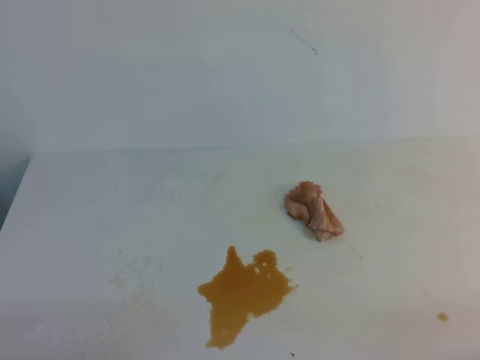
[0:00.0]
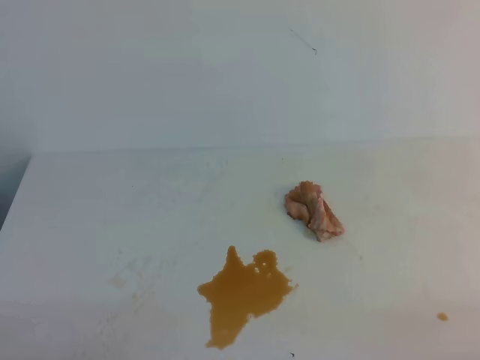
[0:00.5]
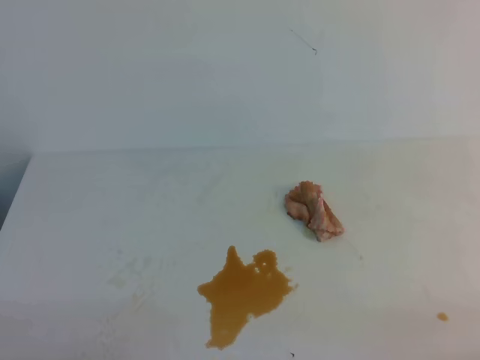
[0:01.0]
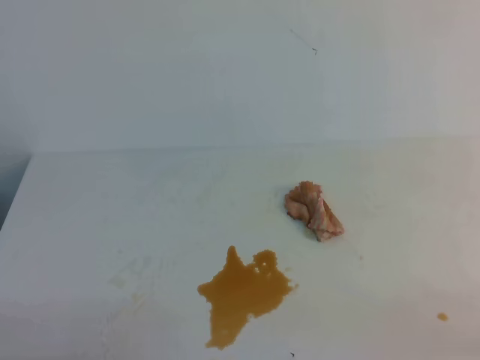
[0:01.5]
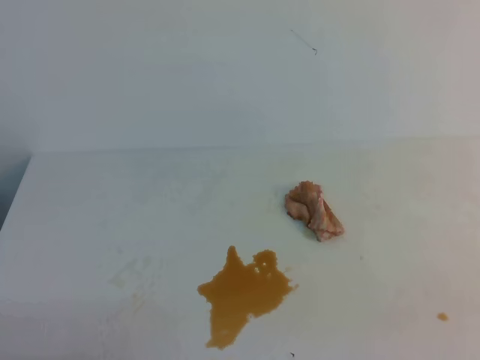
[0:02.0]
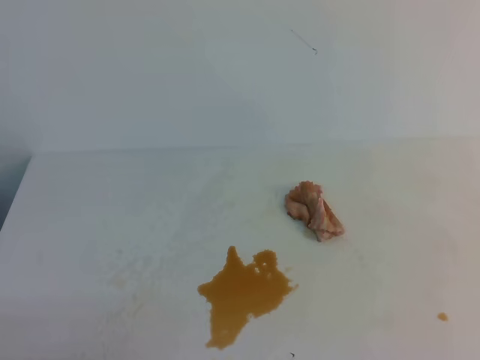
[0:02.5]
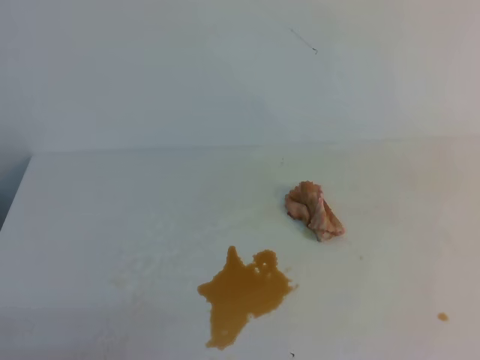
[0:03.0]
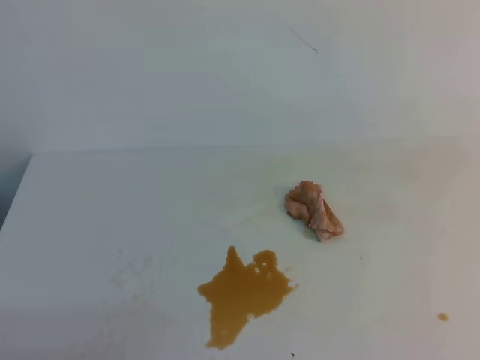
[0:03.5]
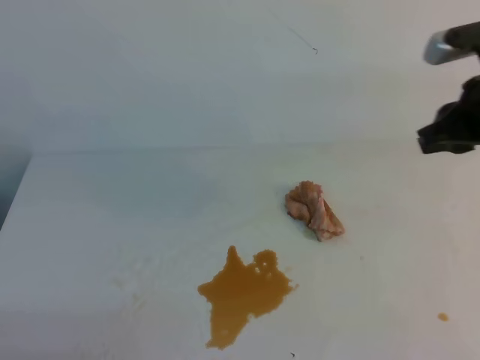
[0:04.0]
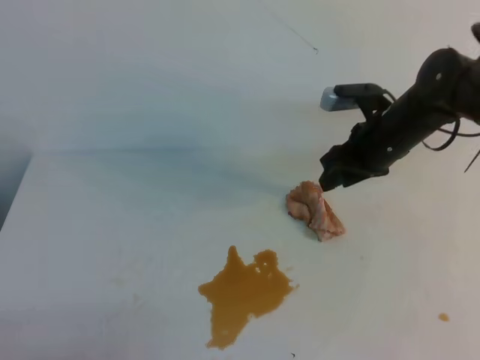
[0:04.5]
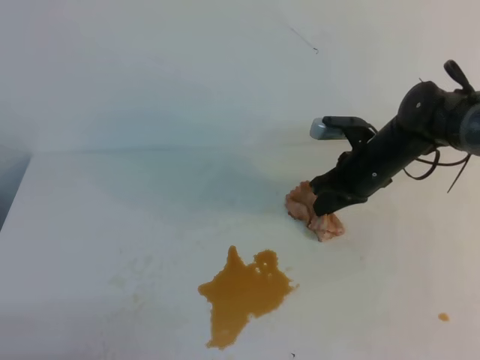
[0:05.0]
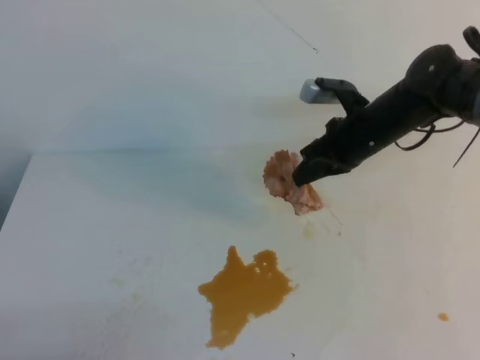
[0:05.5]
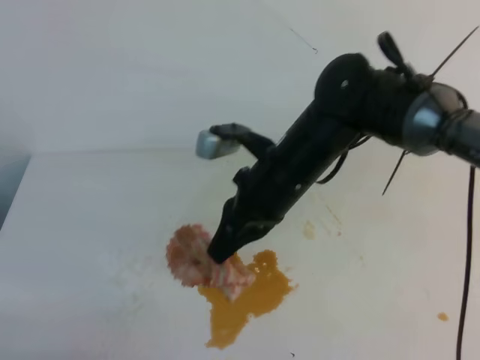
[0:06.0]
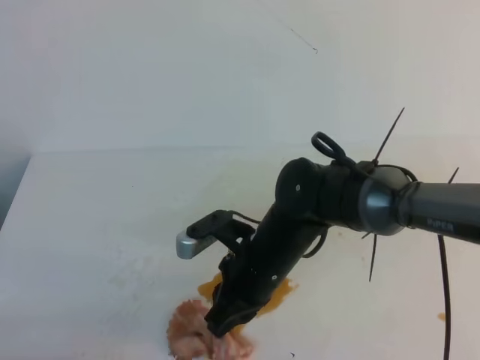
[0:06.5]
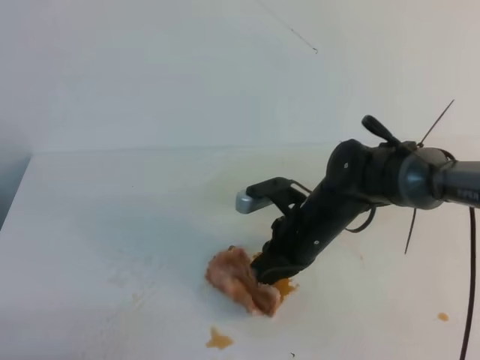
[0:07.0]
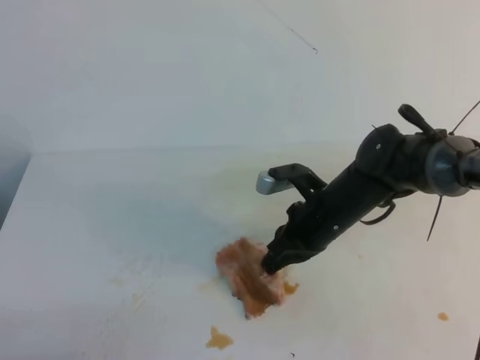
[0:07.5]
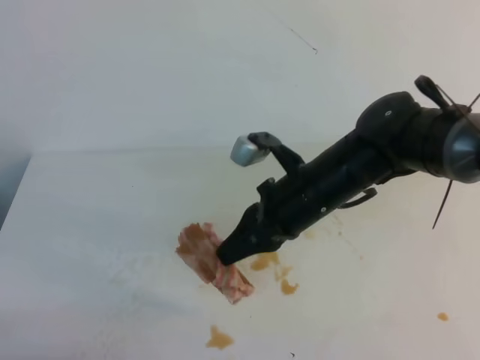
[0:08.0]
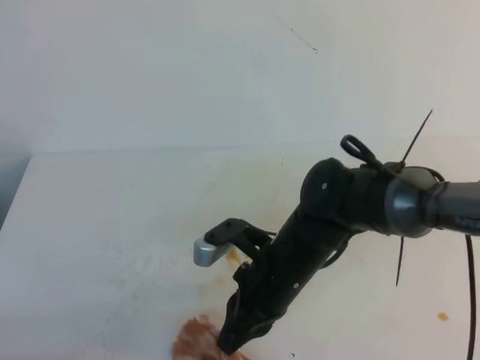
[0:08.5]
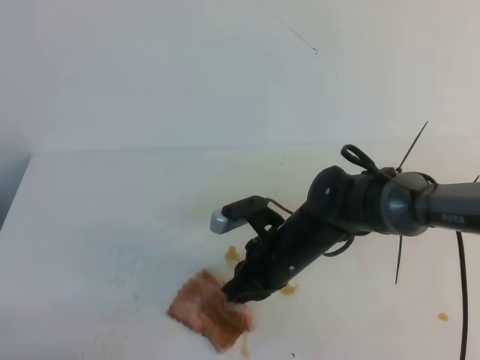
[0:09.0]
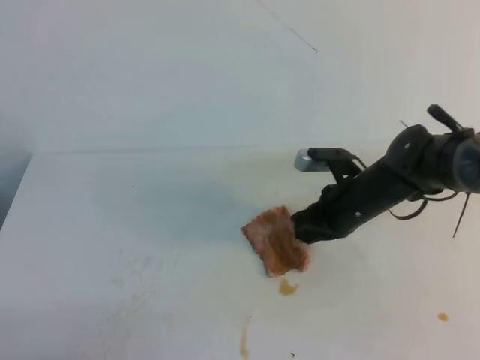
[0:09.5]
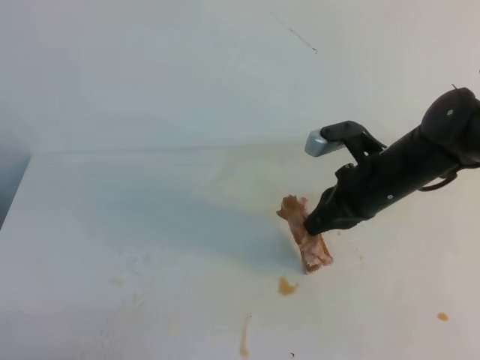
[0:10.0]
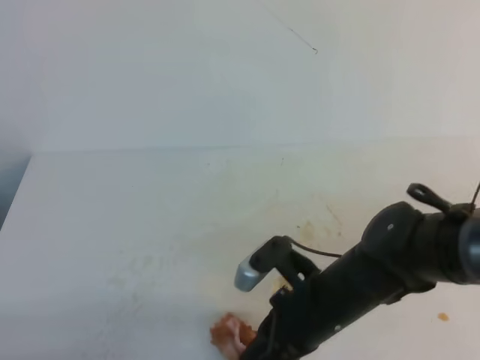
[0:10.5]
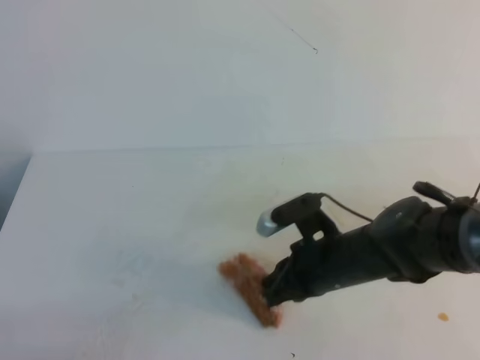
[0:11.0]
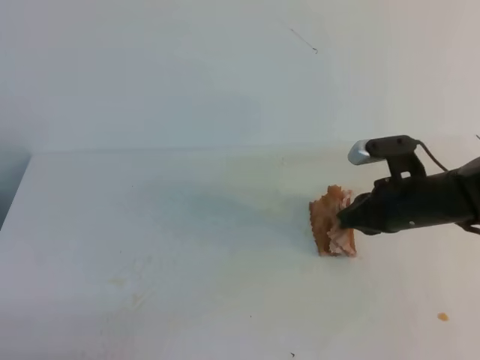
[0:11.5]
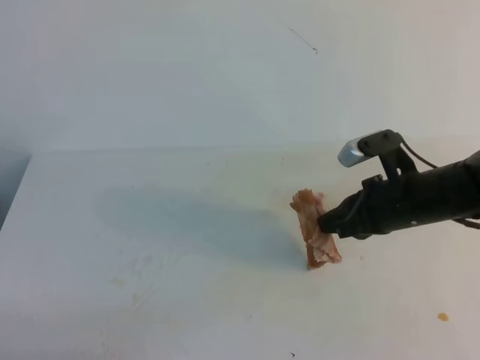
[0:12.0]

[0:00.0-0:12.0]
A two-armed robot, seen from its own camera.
0:02.0 to 0:04.0: The right gripper shifts roughly 30 cm forward, and opens its fingers.
0:04.0 to 0:06.0: The right gripper shifts roughly 20 cm to the left, and closes.
0:06.0 to 0:08.0: The right gripper moves about 10 cm downward and comes back.
0:08.0 to 0:10.0: The right gripper travels to the right by roughly 10 cm.
0:10.0 to 0:12.0: The right gripper goes backward and returns, approximately 10 cm each way.

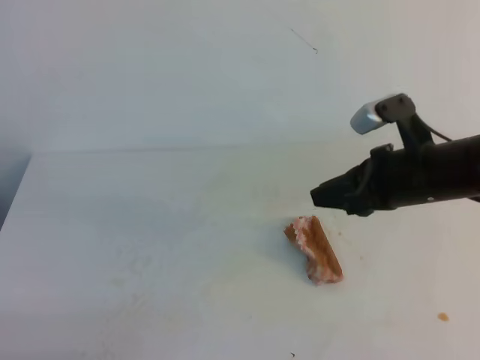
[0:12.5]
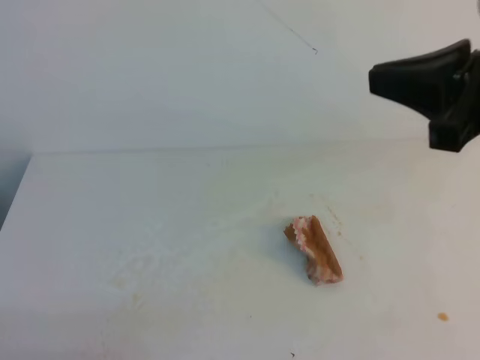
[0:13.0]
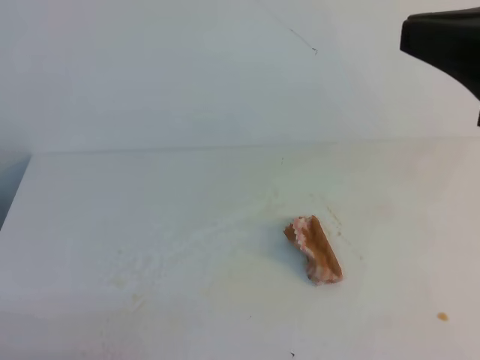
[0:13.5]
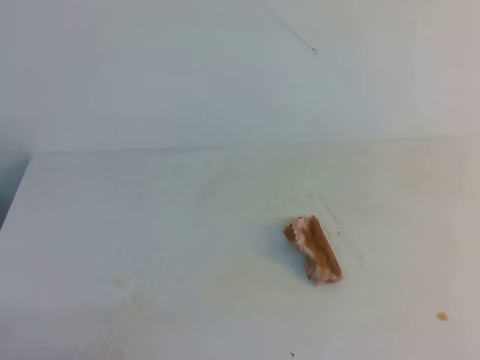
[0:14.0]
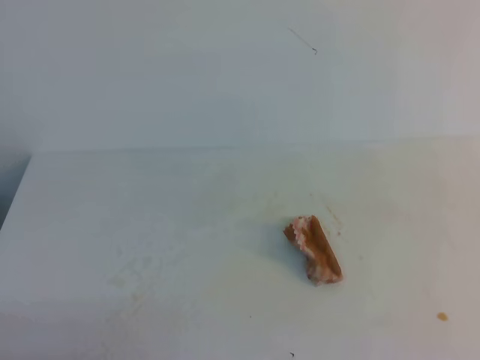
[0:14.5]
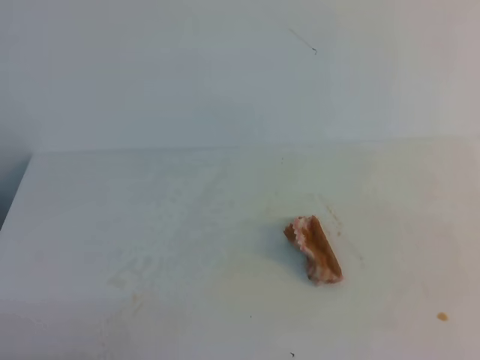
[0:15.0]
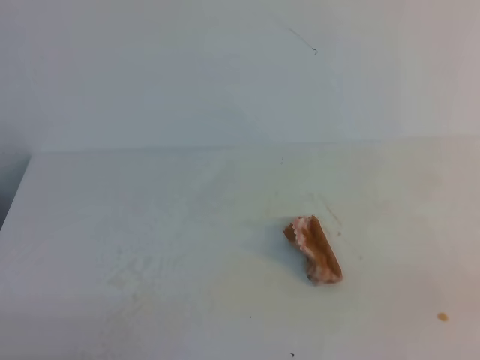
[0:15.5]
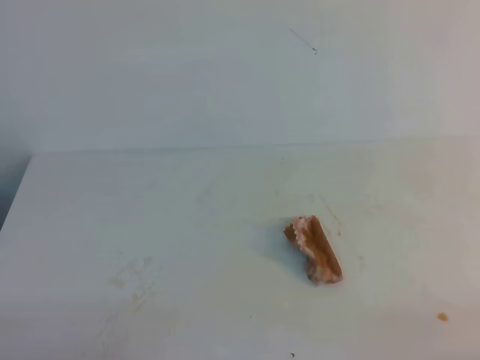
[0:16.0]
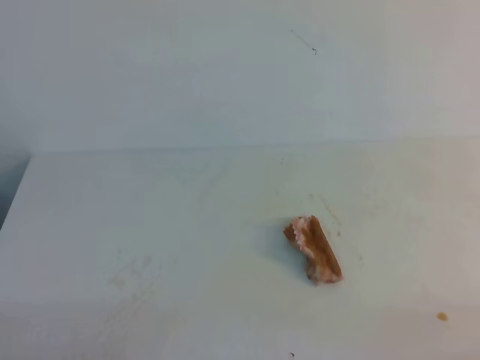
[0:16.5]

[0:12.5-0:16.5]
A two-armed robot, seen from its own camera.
0:12.5 to 0:14.5: The right gripper moves backward, to the right and upward, roughly 35 cm, and closes its fingers.
